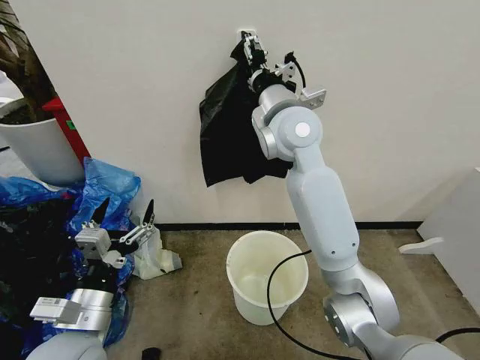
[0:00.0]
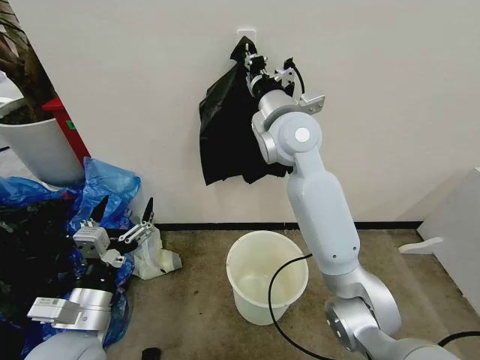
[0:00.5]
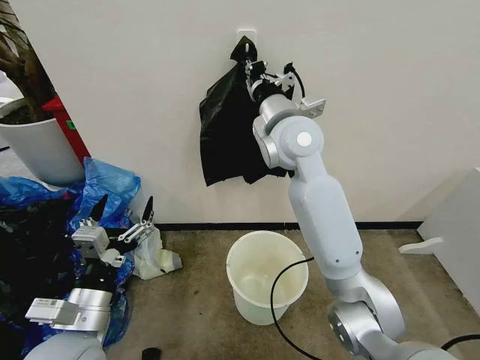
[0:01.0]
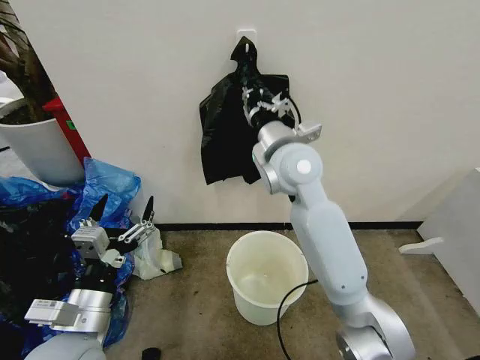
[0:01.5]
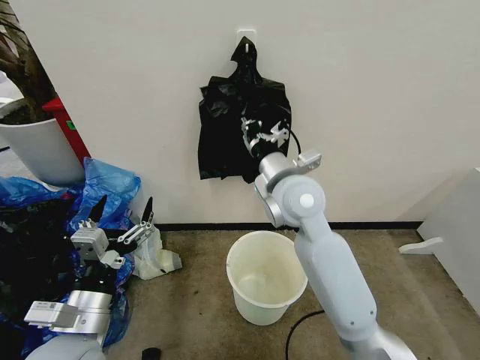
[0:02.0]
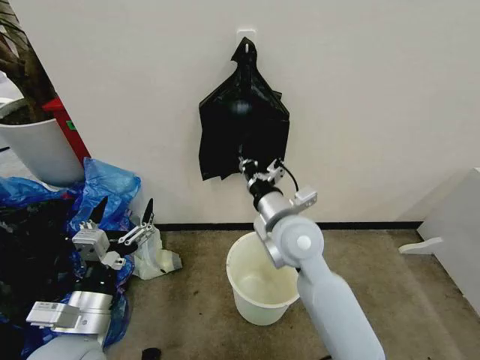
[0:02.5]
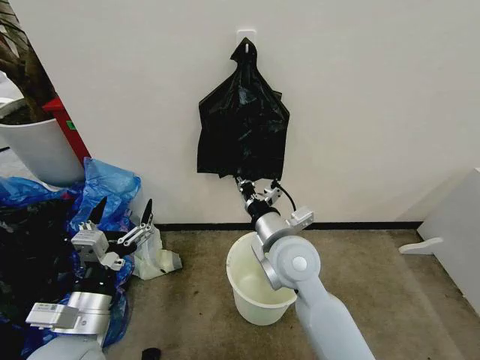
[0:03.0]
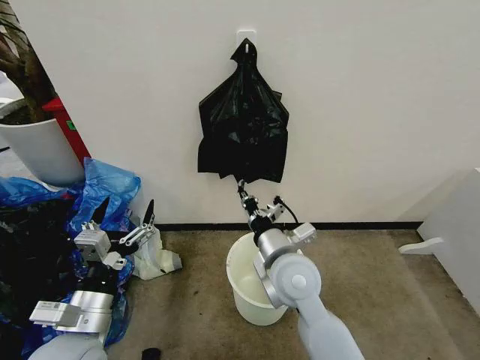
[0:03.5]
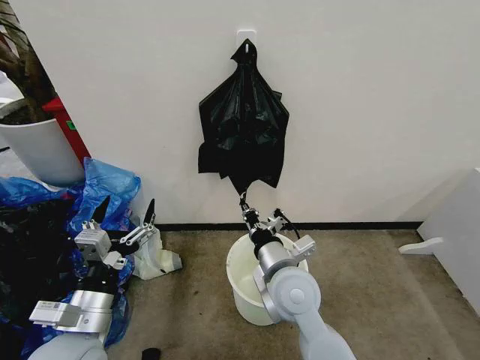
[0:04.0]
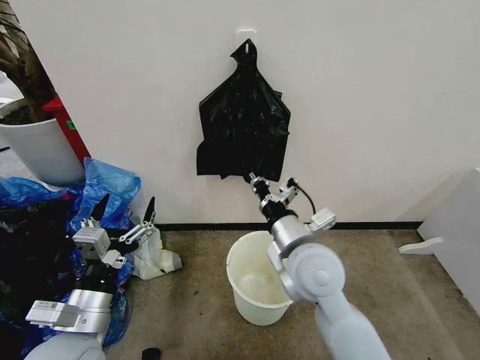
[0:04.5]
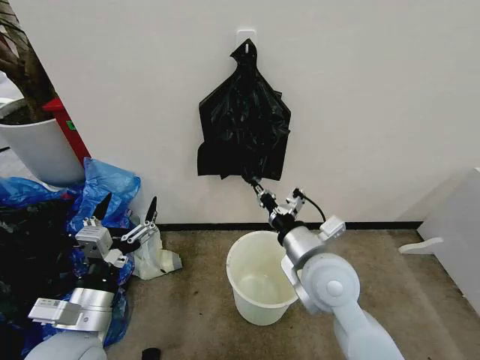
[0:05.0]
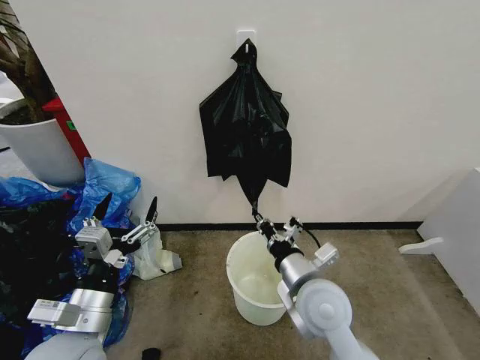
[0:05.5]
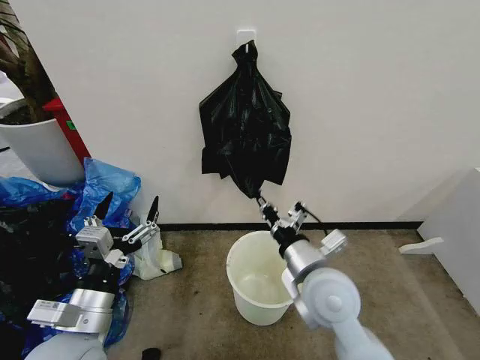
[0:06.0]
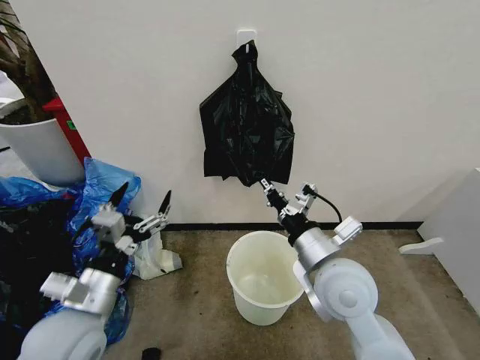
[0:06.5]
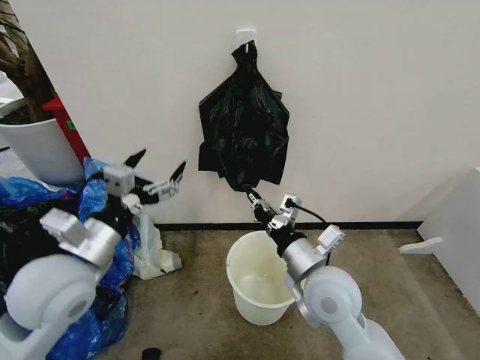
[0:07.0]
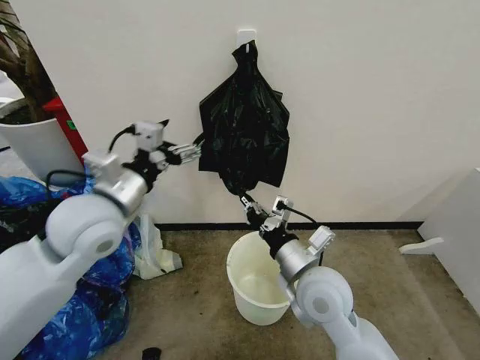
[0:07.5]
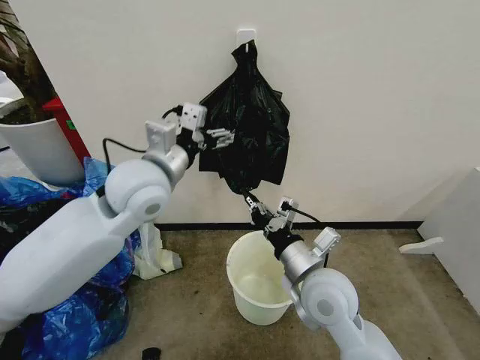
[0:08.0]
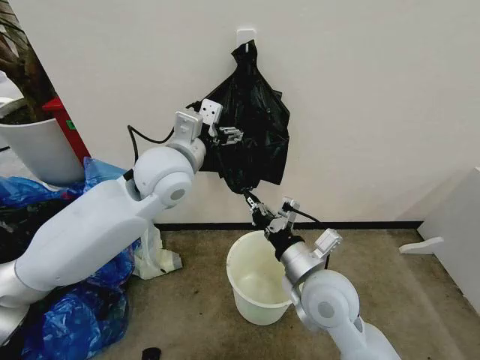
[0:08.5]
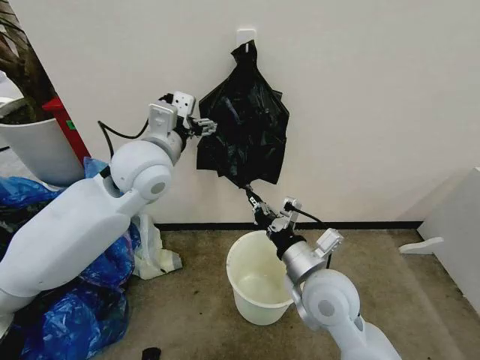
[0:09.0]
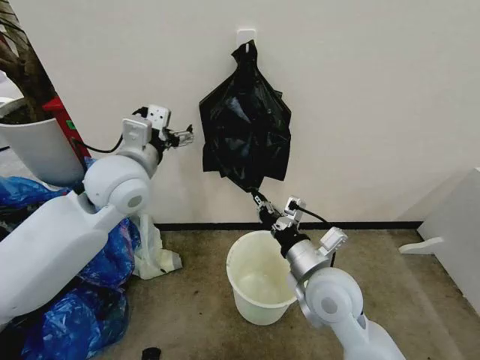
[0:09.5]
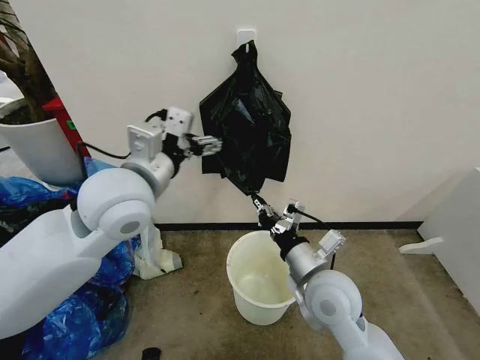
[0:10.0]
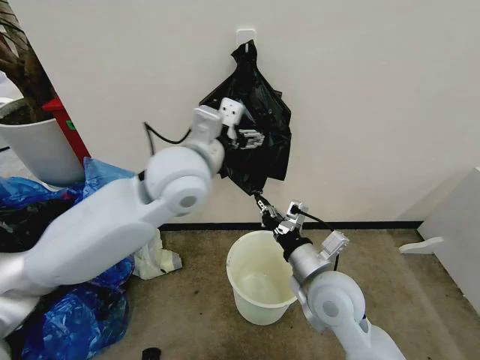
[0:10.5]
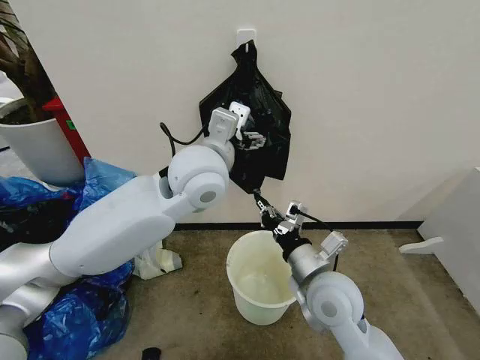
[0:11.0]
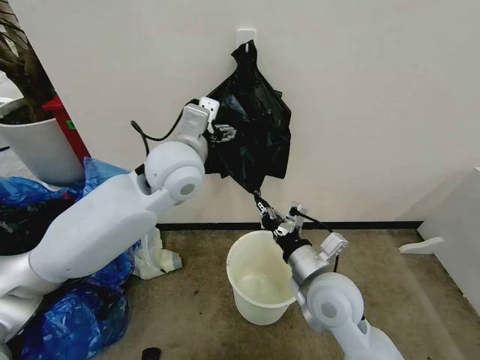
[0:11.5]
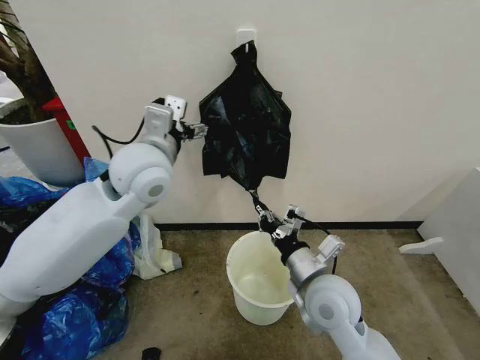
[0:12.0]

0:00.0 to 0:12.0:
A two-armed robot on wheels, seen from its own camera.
Task of the whole recording: Place the garbage bag over the trash bin.
0:00.0 to 0:02.0: The right gripper is displaced downward and backward by some 10 cm, and closes.
0:02.0 to 0:04.0: The right gripper travels downward and backward by some 15 cm.
0:04.0 to 0:06.0: The right gripper travels to the right by roughly 5 cm.
0:06.0 to 0:08.0: The left gripper heads forward, upward and to the right, covering some 25 cm.
0:10.0 to 0:12.0: The left gripper moves forward, approximately 5 cm, and moves some 10 cm to the right and comes back.

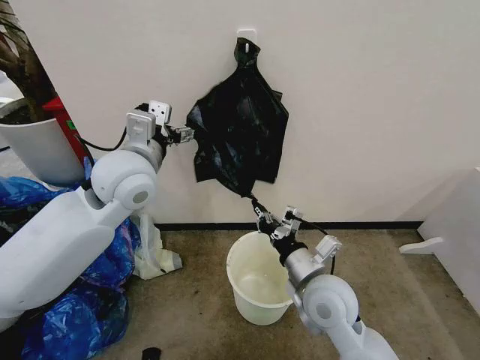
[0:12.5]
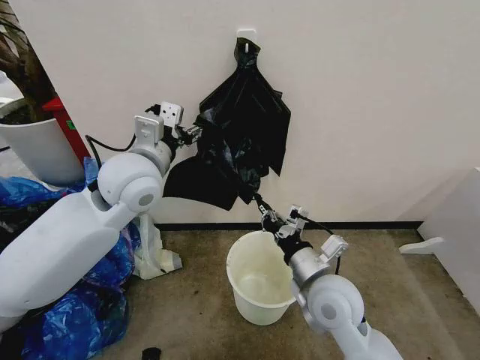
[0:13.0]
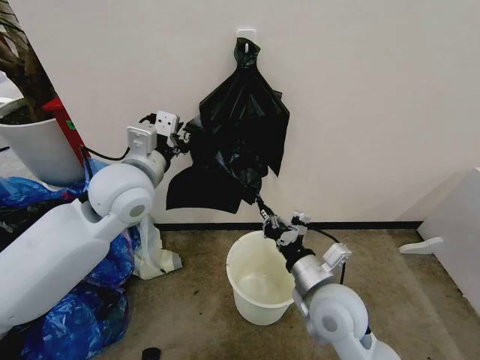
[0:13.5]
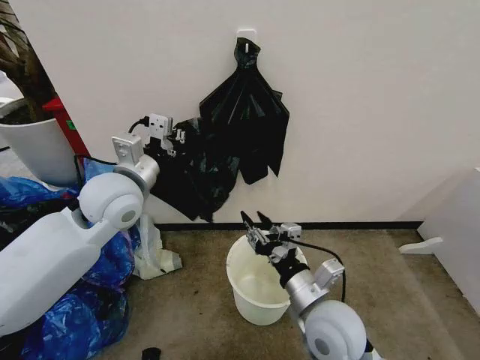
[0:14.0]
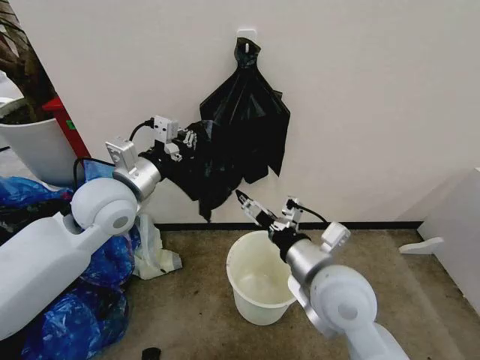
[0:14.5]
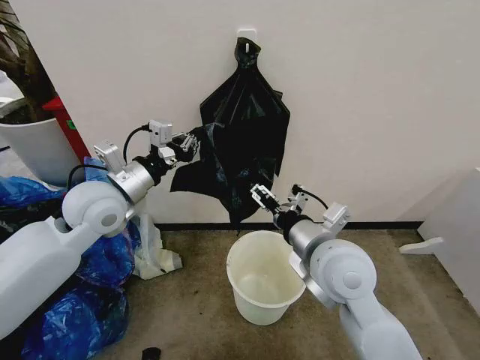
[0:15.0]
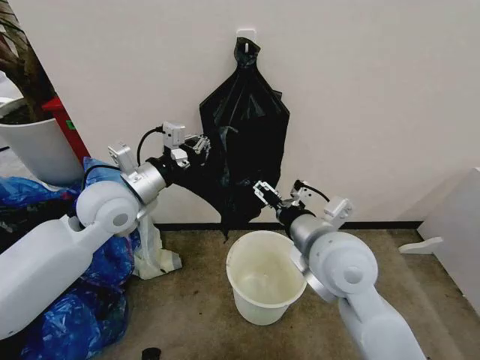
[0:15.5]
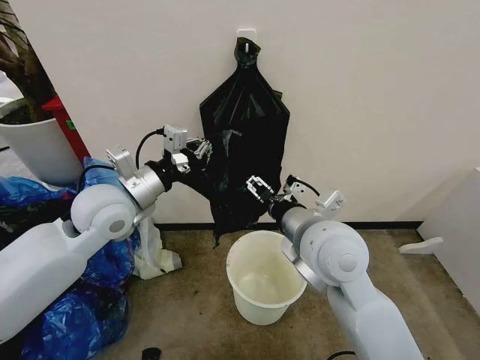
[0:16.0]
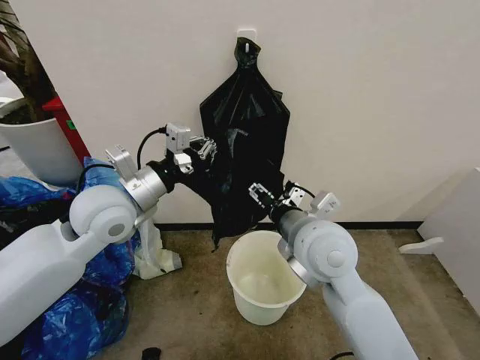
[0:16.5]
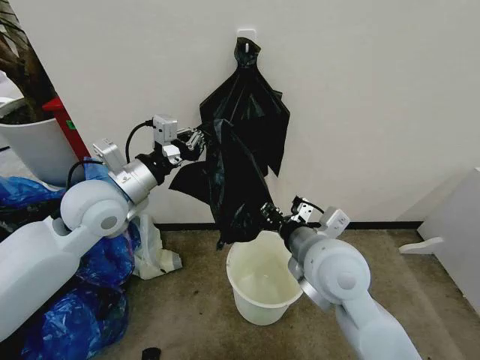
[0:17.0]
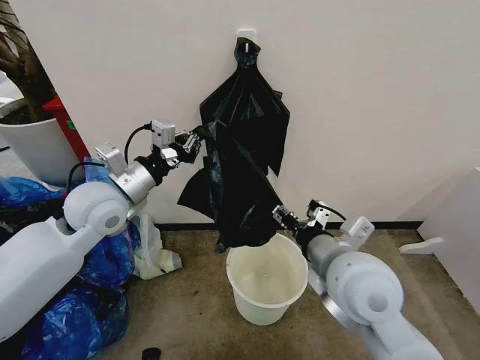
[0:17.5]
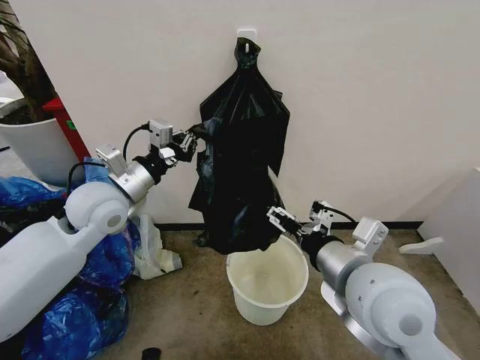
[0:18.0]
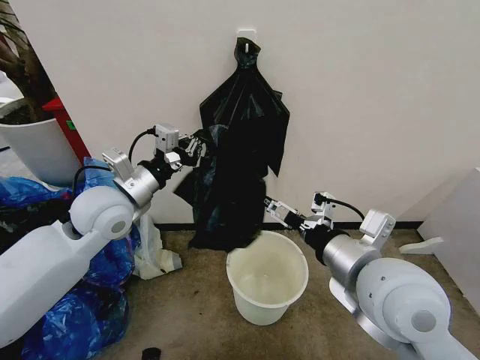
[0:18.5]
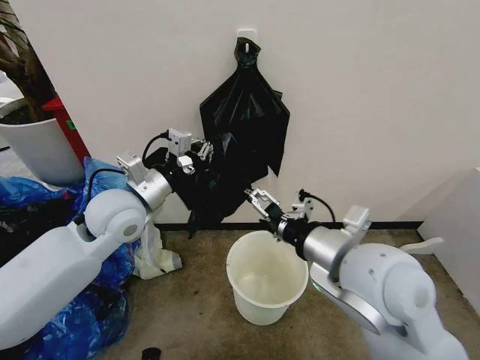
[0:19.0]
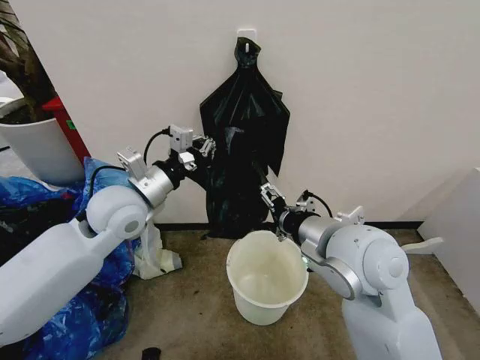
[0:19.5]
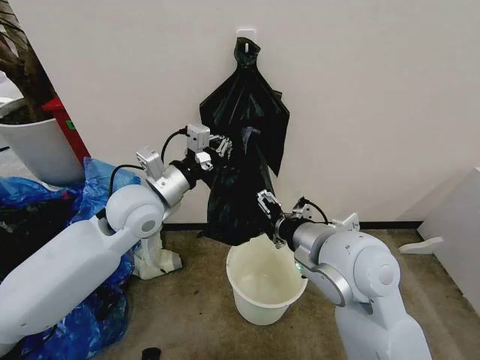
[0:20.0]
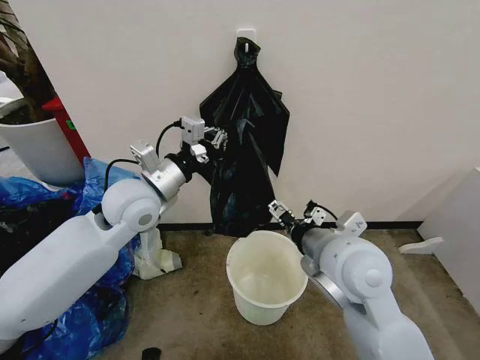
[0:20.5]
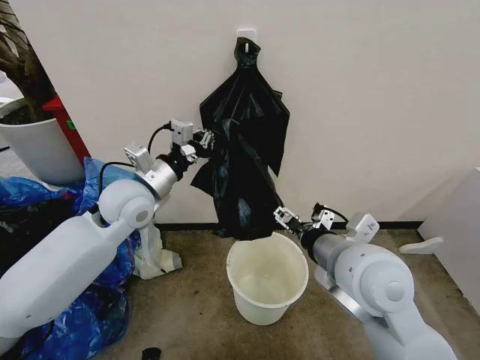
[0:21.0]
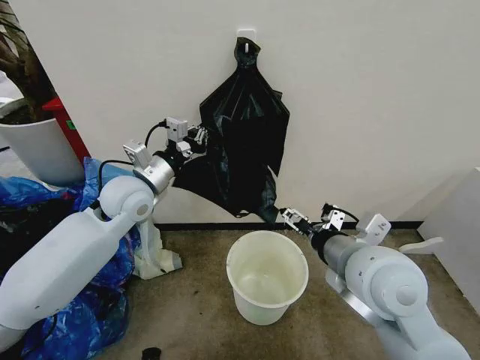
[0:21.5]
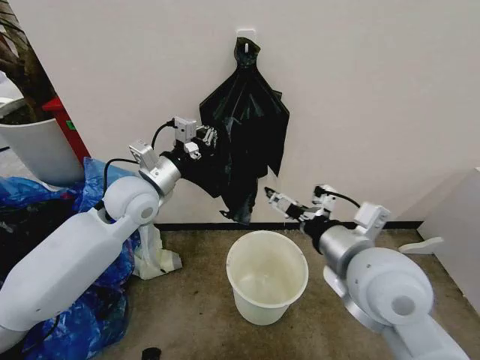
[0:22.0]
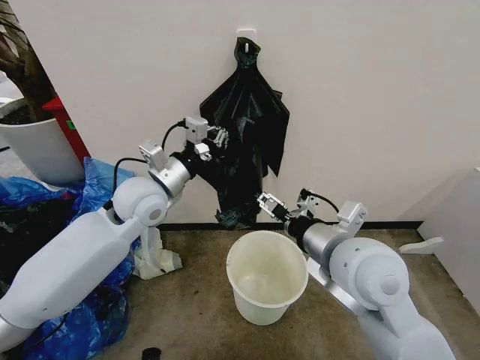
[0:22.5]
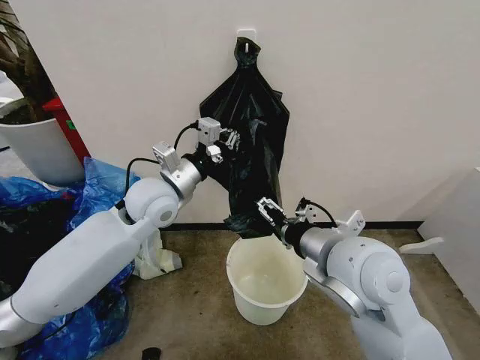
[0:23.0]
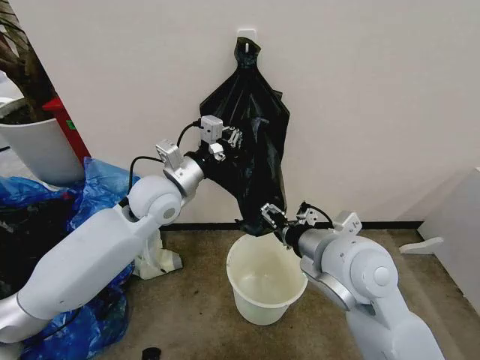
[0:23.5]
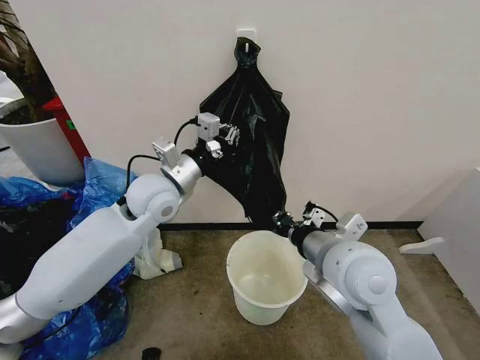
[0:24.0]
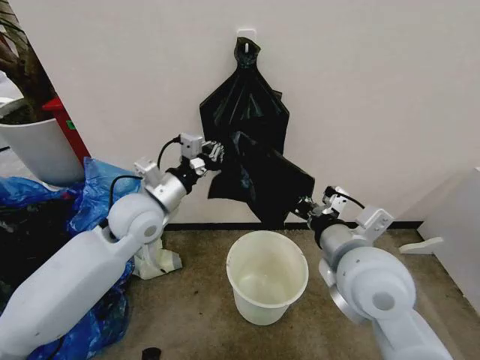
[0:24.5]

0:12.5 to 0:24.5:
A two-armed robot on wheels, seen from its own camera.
Task of the whole recording: Place the garbage bag over the trash bin.
0:12.5 to 0:14.5: The right gripper heads upward, covering some 5 cm, and opens up. The left gripper moves roughly 5 cm, and closes up.
0:14.5 to 0:16.5: The right gripper goes roughly 5 cm forward.
0:16.5 to 0:18.5: The right gripper shifts about 10 cm backward and to the right, and closes, then opens again.
0:18.5 to 0:20.5: The left gripper shifts by approximately 5 cm. Meanwhile the right gripper goes approximately 5 cm forward.
0:22.5 to 0:24.5: The right gripper closes up.

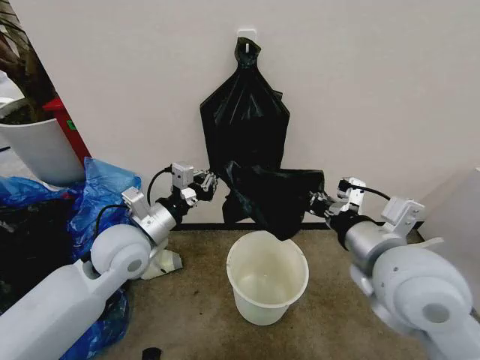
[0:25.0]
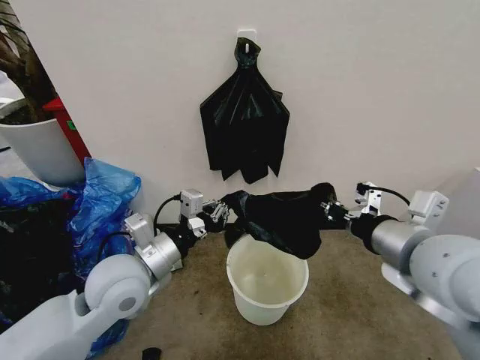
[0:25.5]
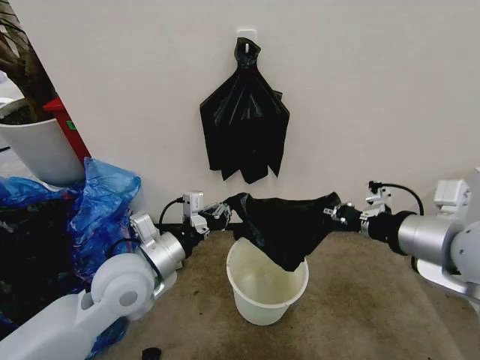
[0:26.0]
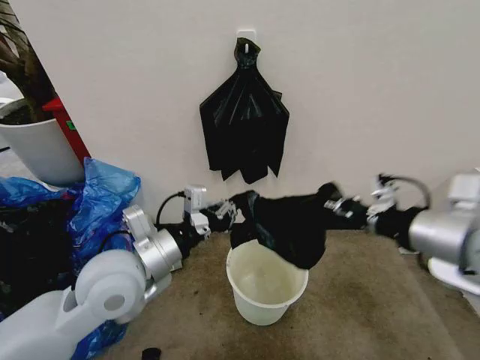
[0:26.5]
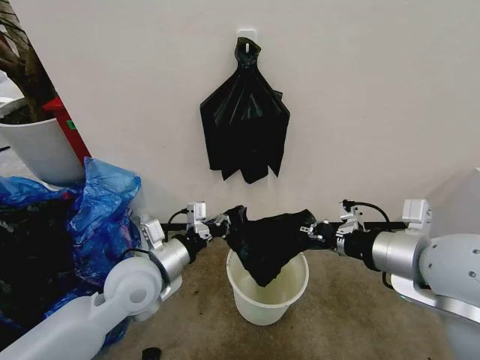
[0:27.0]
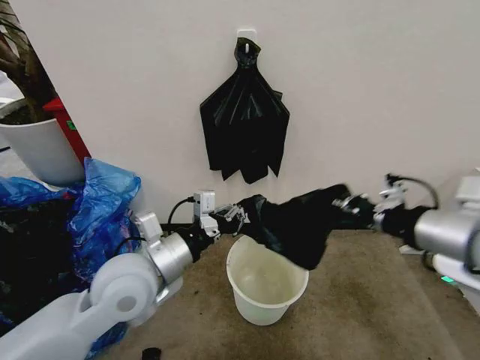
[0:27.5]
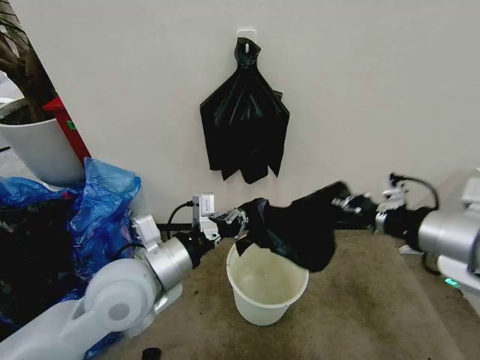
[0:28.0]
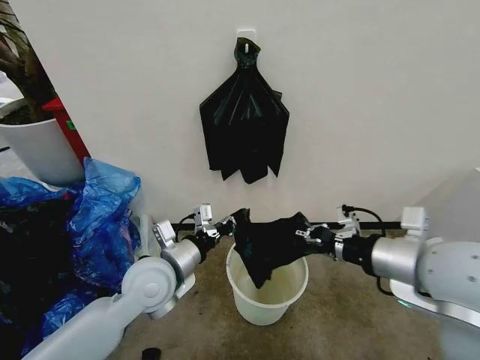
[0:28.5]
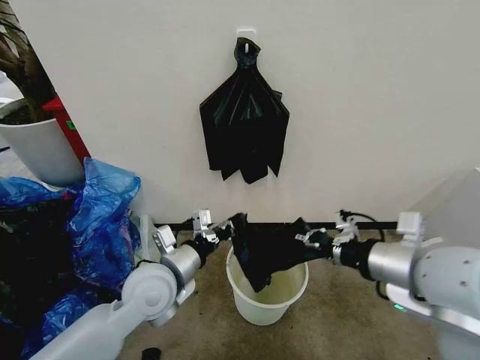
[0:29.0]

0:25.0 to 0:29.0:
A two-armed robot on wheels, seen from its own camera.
Task of the whole recording: Place the garbage bag over the trash bin.
0:25.0 to 0:27.0: The left gripper moves approximately 5 cm. Meanwhile the right gripper heads to the right, covering about 5 cm.
0:27.0 to 0:29.0: The left gripper travels upward and back again, roughly 5 cm each way.
